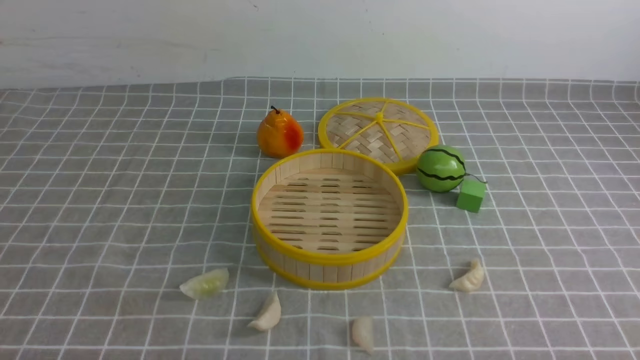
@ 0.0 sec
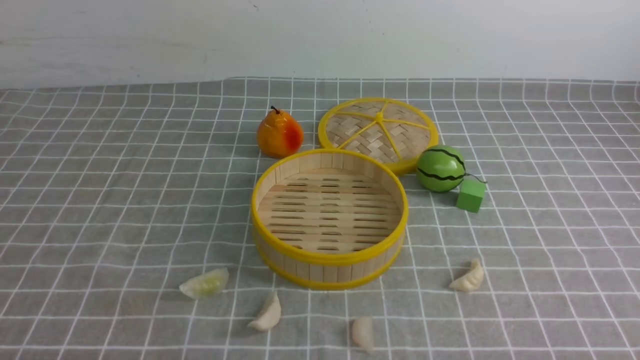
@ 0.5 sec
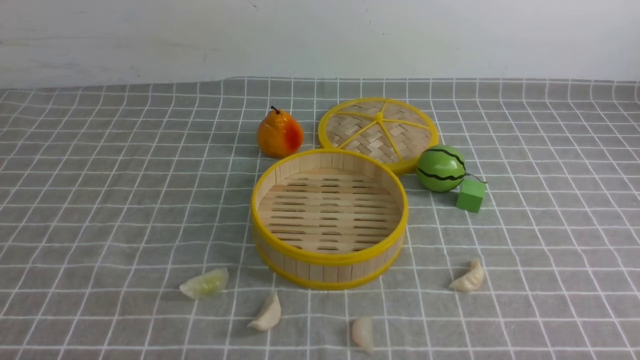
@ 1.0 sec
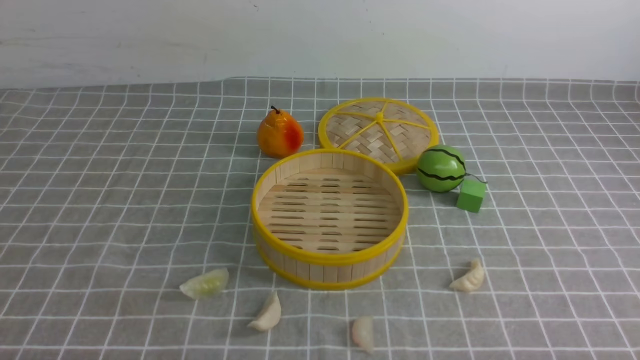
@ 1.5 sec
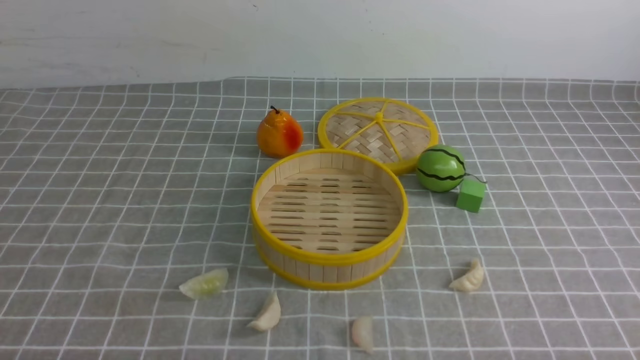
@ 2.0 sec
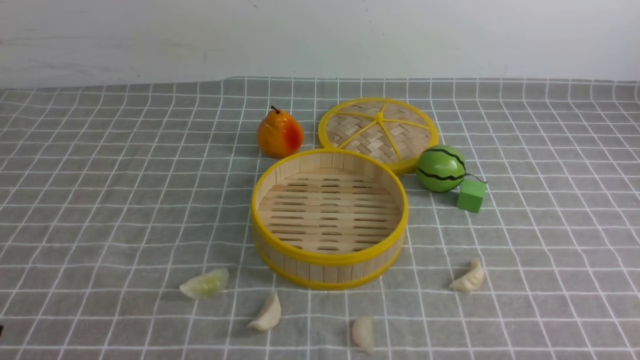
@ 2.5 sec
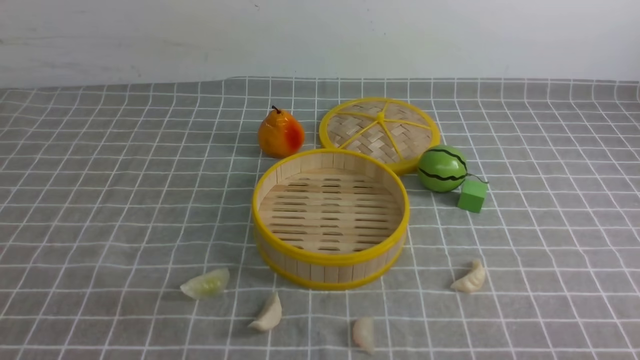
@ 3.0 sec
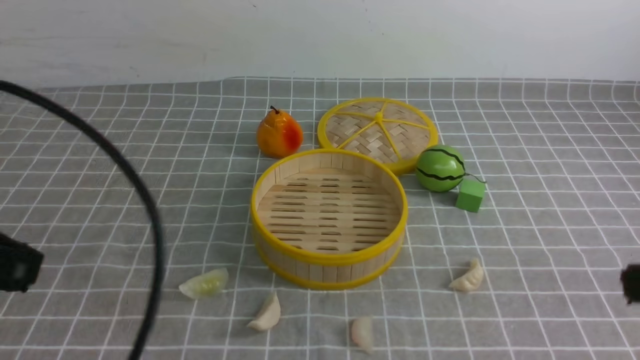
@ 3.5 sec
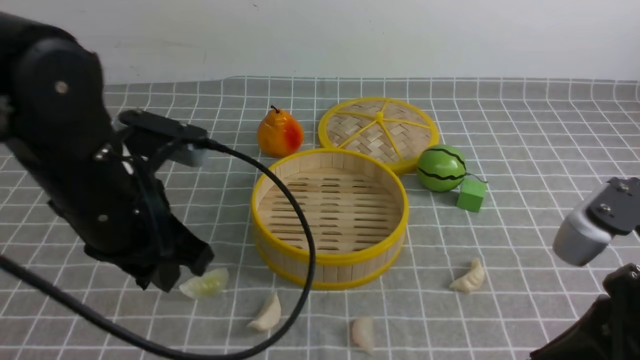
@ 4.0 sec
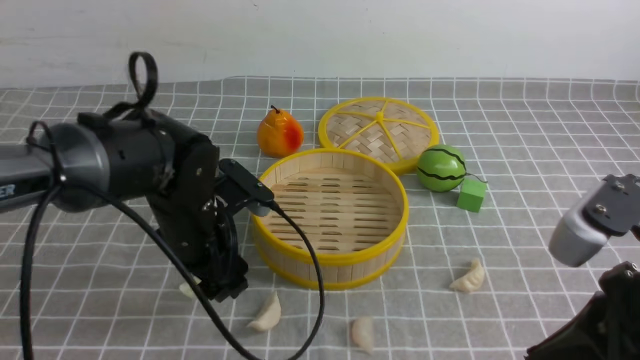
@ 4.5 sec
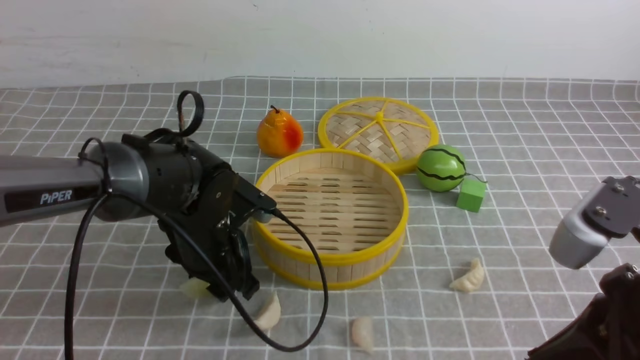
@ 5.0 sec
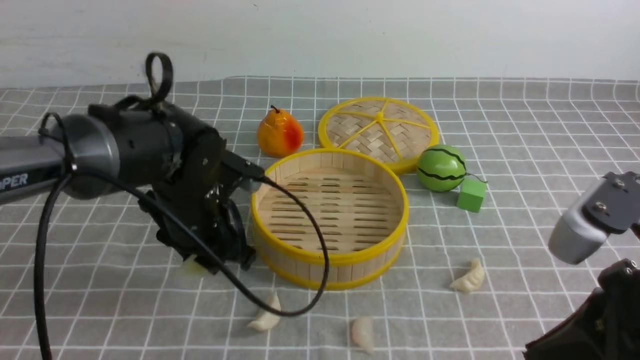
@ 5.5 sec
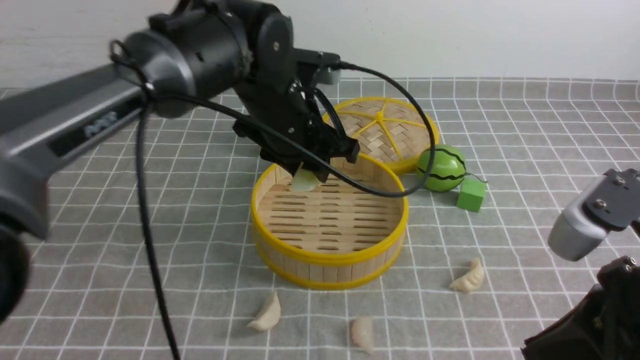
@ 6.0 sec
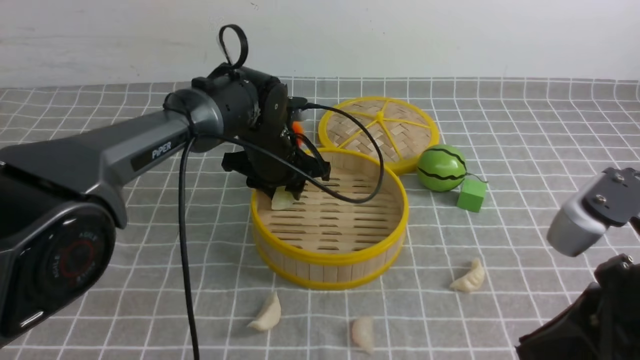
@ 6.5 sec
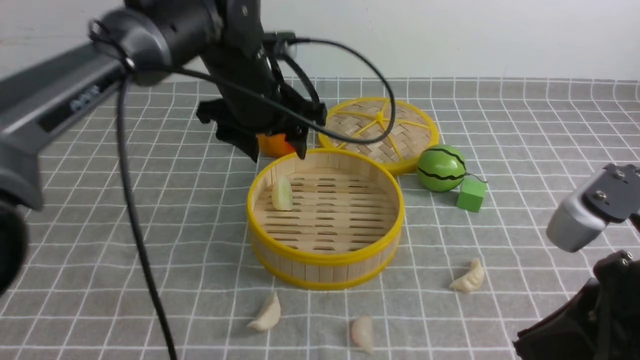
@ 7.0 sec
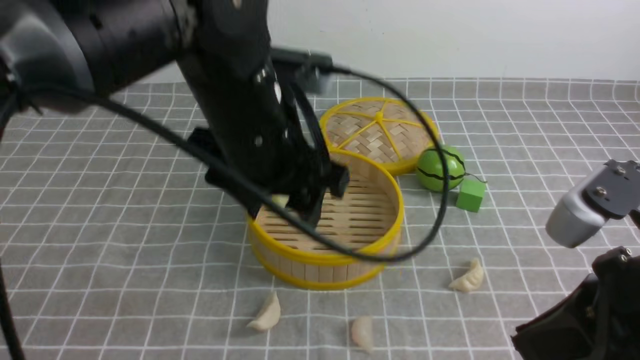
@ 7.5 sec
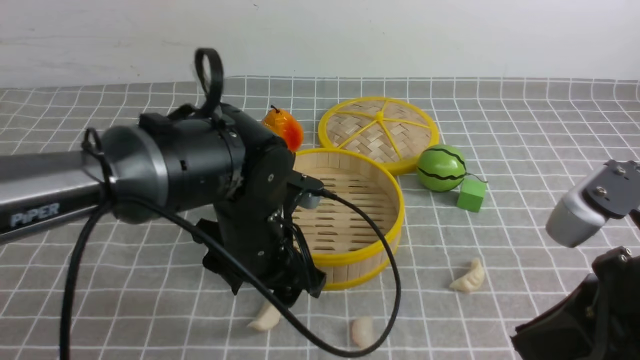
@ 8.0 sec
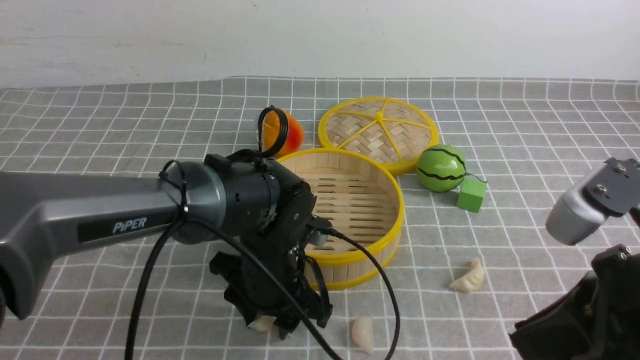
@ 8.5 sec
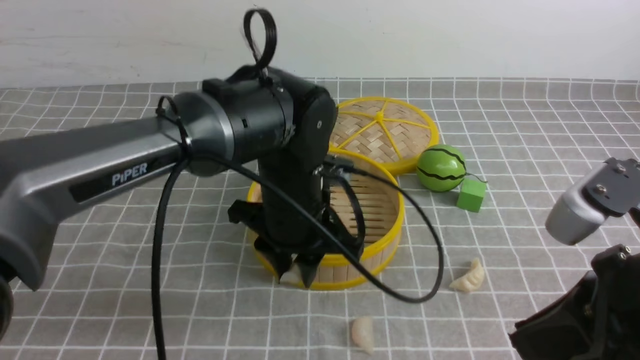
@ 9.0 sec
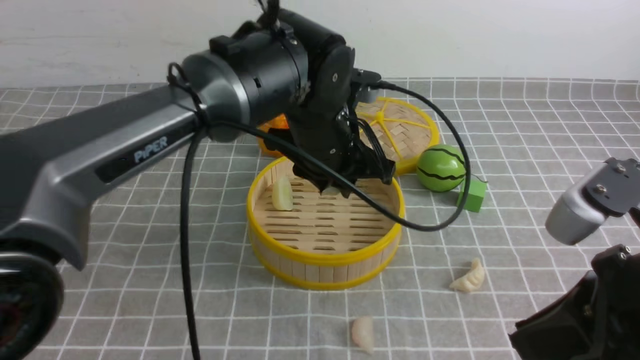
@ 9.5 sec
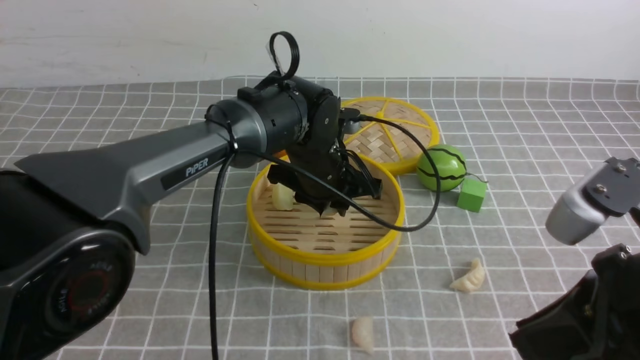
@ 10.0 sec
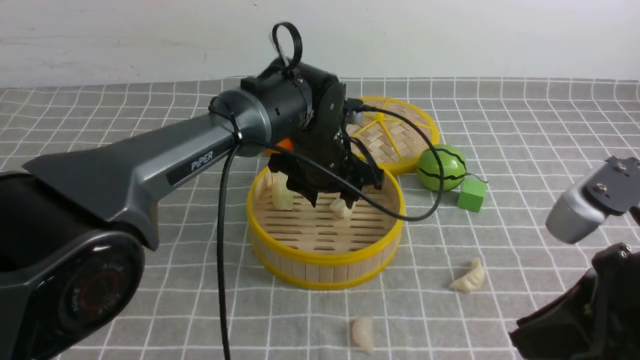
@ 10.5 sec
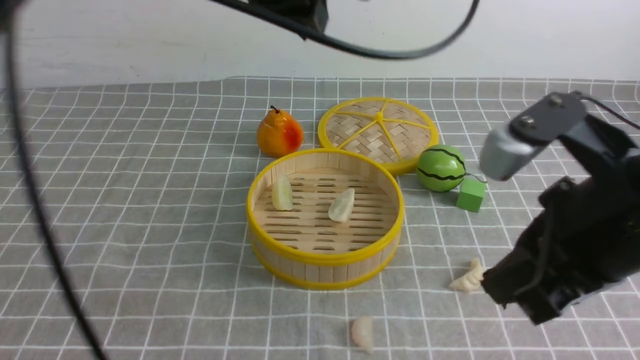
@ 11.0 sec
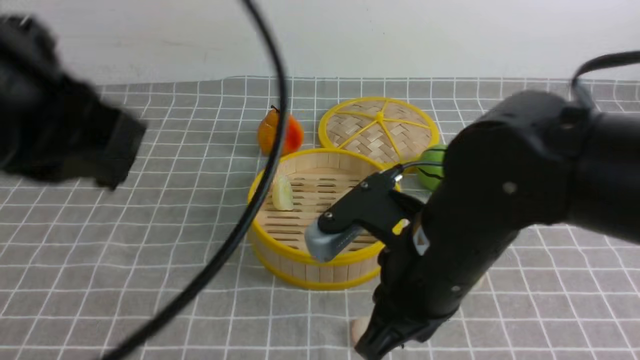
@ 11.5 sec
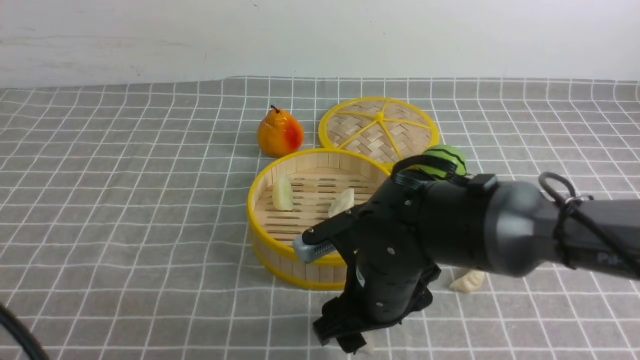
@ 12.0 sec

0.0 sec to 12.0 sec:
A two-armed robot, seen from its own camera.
Task of the whole recording: put the dumplings into the steamer on the table with the grey tablecloth.
Step, 0.0 sec to 5.5 sec: use the left arm to grab a dumpling.
Step, 6.0 sec to 6.5 sec: use the left arm to put the dumpling into the steamer.
Step, 7.0 sec to 8.5 sec: use the left arm to grab a dumpling.
Step, 9.0 sec to 10.5 sec: use the left arm to put the dumpling into the steamer.
2.0 sec to 4.0 sec: The right gripper moves upward, forward and to the left, approximately 20 cm, and closes its fingers. The left gripper is displaced forward, upward and to the right by roughly 25 cm.
4.0 sec to 6.0 sec: The left gripper moves forward and to the right, about 20 cm, moves approximately 15 cm downward and comes back, and opens, then closes again.
6.0 sec to 8.0 sec: The left gripper goes roughly 10 cm backward, and opens up.
8.0 sec to 10.0 sec: The left gripper travels forward and to the right by roughly 15 cm, and closes up.
10.0 sec to 12.0 sec: The left gripper is displaced backward, to the left and upward by approximately 40 cm, and closes up. The right gripper shifts about 25 cm to the left, downward and forward, and opens up.

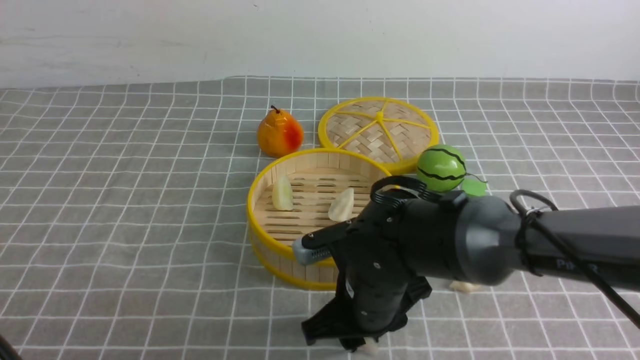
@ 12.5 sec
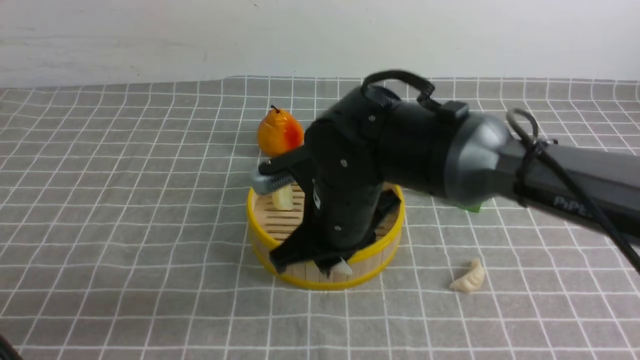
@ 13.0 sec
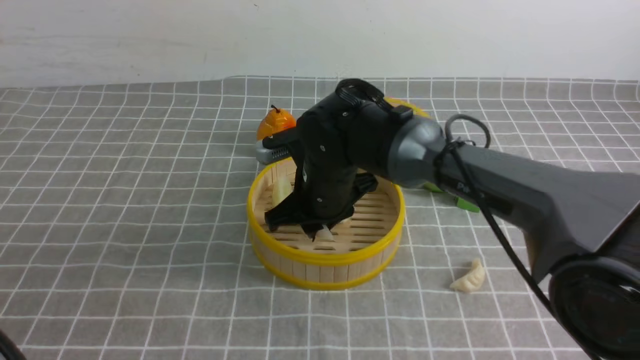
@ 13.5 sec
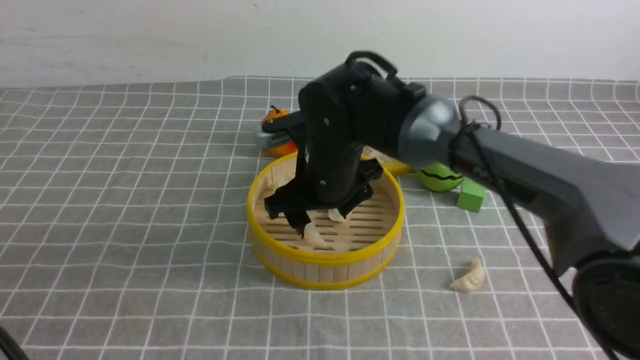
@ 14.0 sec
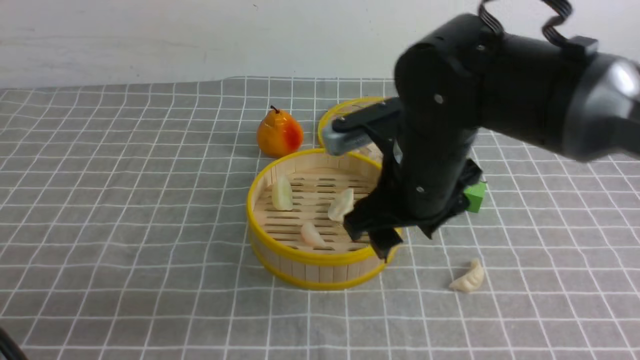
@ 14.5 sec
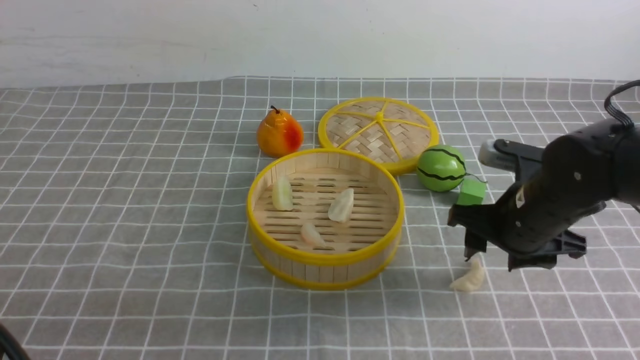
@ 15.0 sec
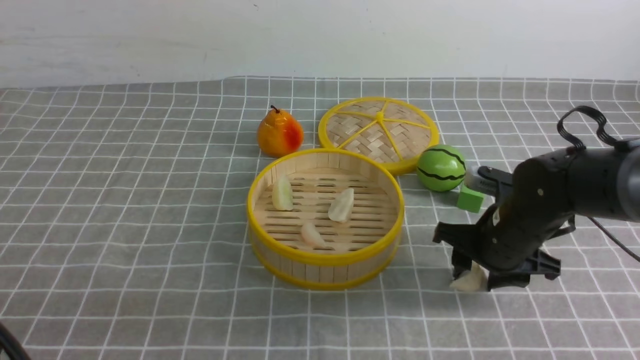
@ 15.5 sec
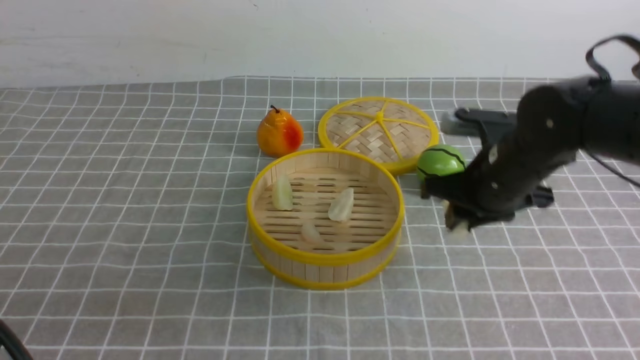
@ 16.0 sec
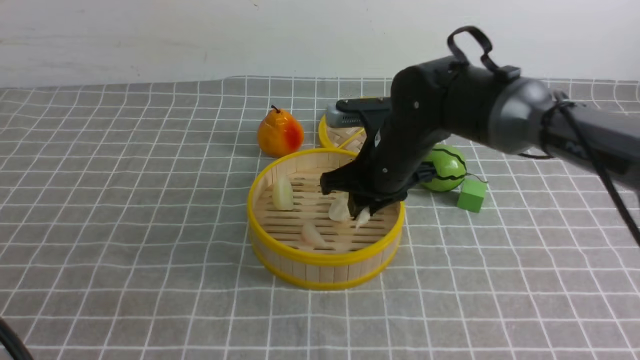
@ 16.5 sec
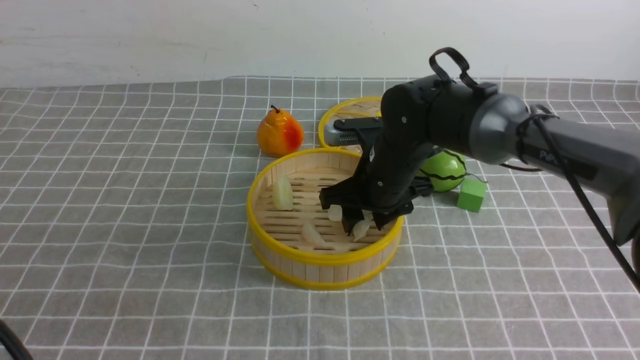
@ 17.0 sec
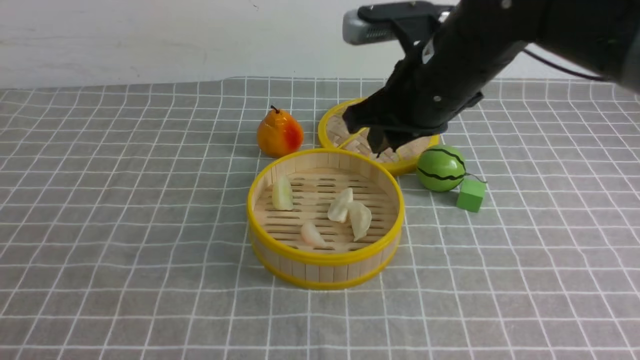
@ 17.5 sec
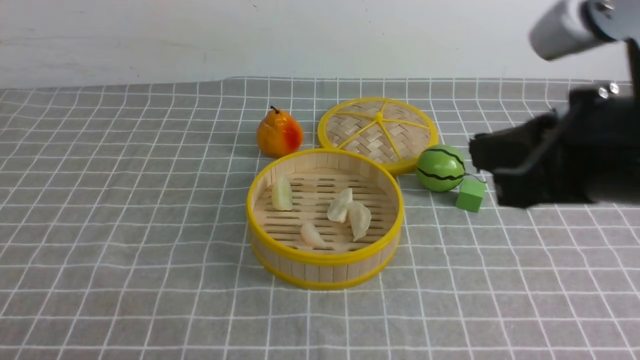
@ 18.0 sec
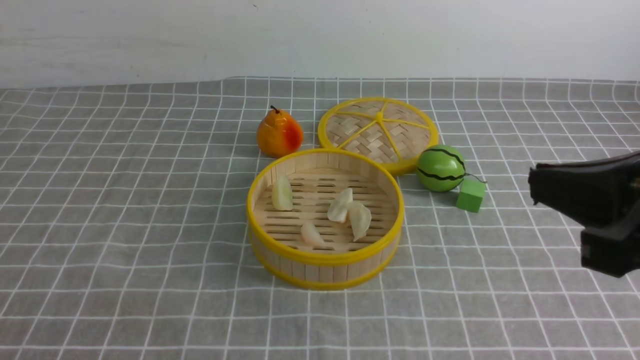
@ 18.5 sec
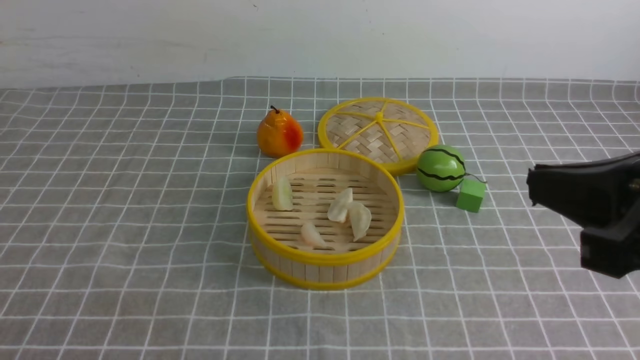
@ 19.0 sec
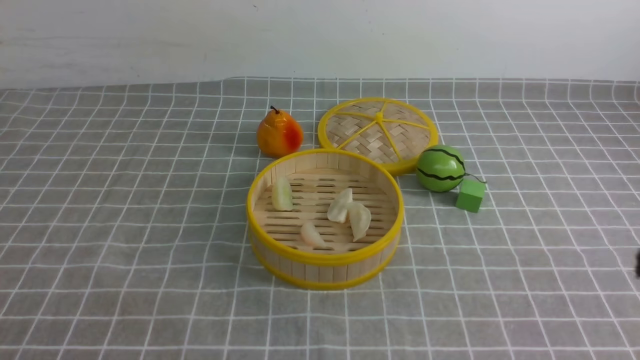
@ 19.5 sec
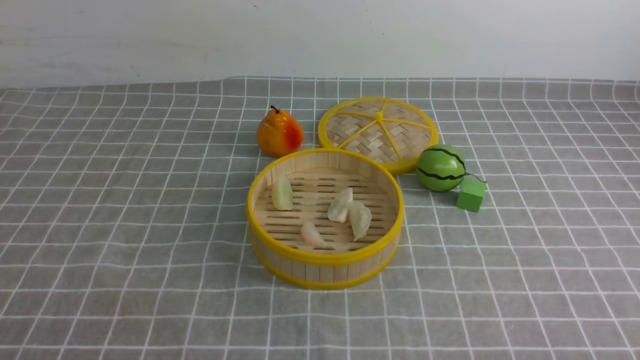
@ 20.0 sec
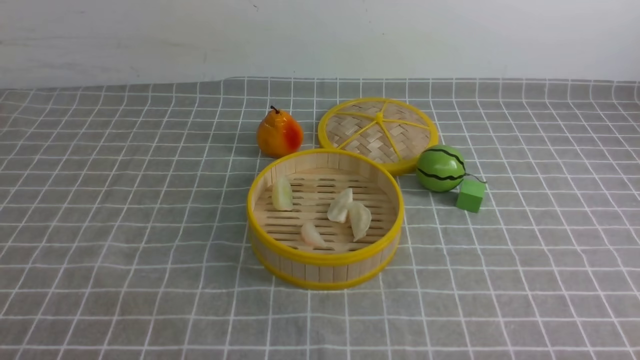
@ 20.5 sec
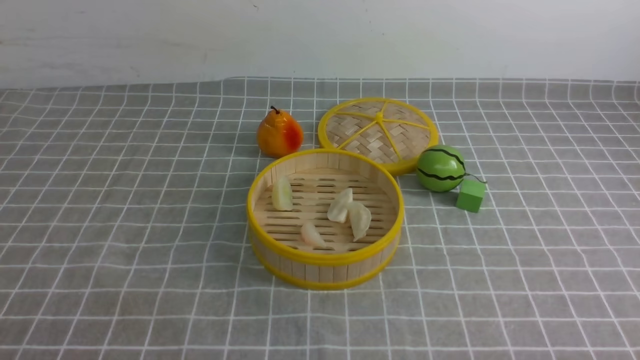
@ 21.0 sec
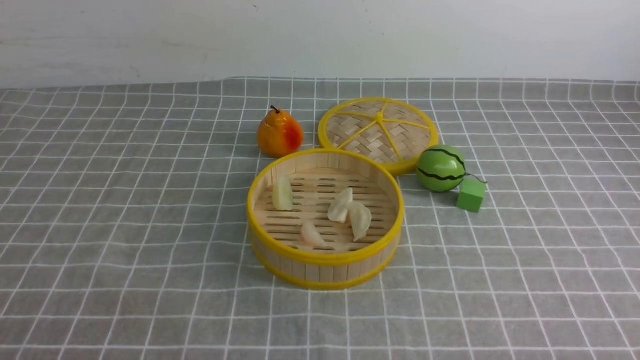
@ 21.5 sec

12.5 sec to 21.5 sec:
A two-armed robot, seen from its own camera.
Task of the whole recording: put the dumplings into the steamer on the table with the grey tablecloth.
Step, 13.0 sec to 14.0 sec: use the right arm to put the dumpling into the steamer.
Step, 14.5 sec to 15.5 sec: use the right arm to grab a dumpling.
Step, 16.5 sec to 17.0 sec: use the right arm to put the dumpling into the steamer.
12.5 sec to 14.5 sec: The right gripper is displaced upward by about 15 cm.
14.5 sec to 17.0 sec: The right gripper travels forward and downward by approximately 10 cm, and reaches roughly 15 cm to the right, then returns.
17.0 sec to 19.5 sec: The left gripper moves downward, approximately 5 cm. Meanwhile the right gripper is displaced backward and to the right by approximately 35 cm, and closes.
